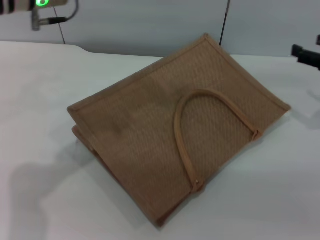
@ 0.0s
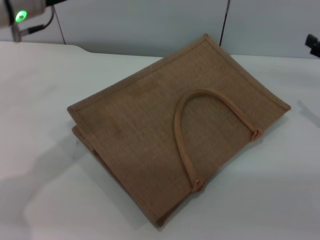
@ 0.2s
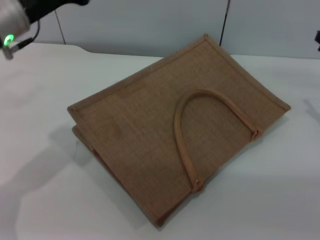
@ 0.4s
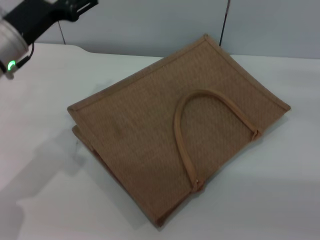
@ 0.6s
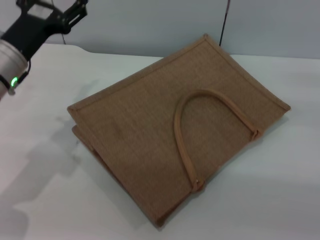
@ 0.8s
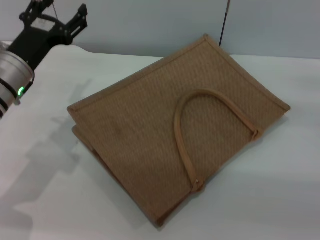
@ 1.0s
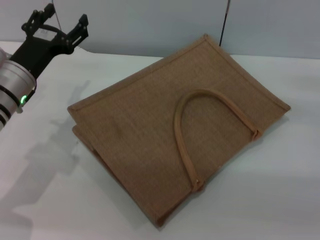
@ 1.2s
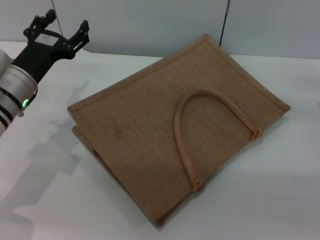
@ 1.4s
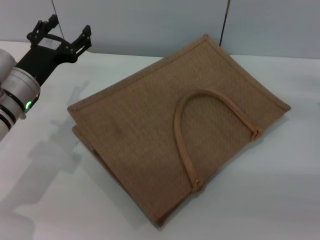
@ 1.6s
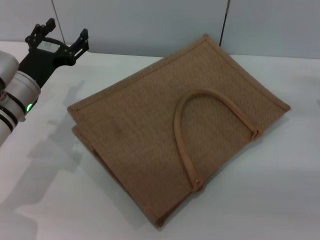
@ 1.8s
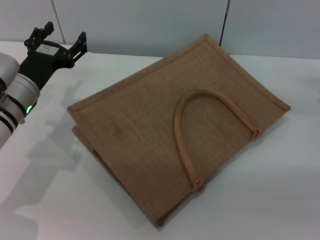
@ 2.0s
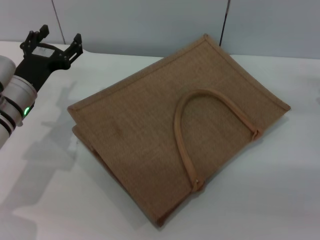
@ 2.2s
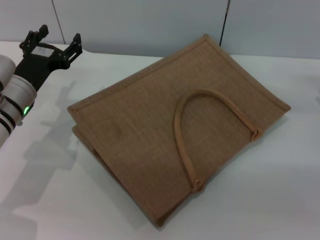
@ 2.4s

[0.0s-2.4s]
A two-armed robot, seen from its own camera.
Task of the whole recording: pick up the egg yolk pastry from the table and place it in the brown handbag.
Step, 0.0s to 0.8s: Lower the woven bag with the left gripper to close it.
0.0s to 1.2s: The left gripper goes some 15 cm downward; the right gripper travels downward by about 5 cm.
1.2s to 2.4s: The grippers make only small movements.
